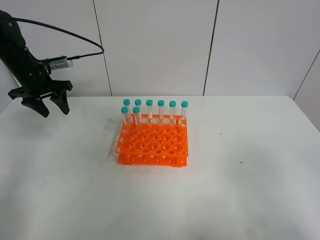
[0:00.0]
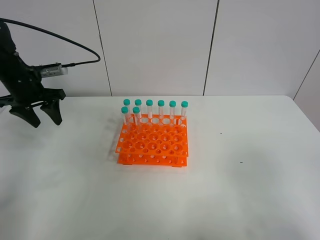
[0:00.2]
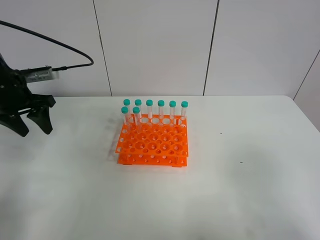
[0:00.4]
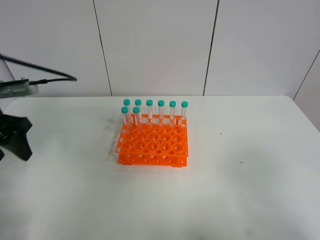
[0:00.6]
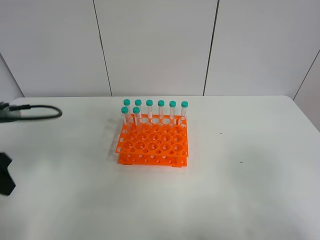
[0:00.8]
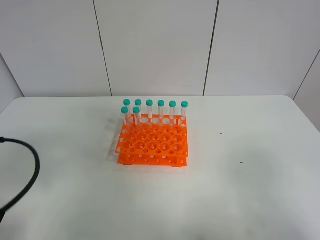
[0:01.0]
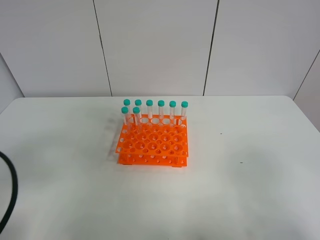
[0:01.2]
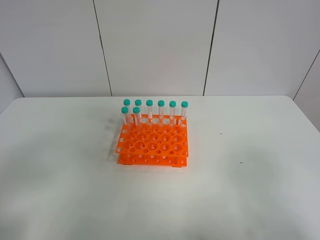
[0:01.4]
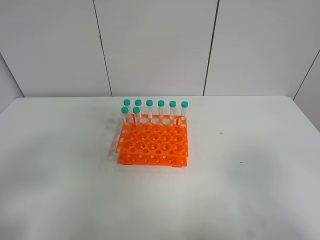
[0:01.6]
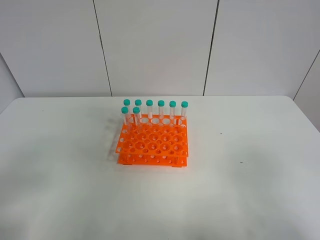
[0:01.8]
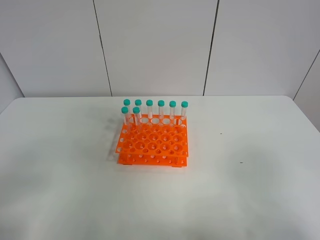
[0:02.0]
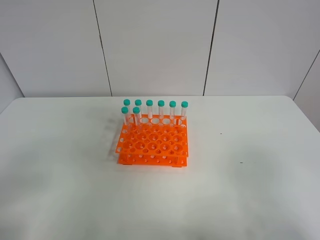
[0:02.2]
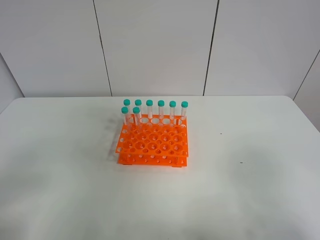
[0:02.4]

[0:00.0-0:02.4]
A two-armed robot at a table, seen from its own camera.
Task of the whole recording: Put the test tube on the table back onto the test tube rack.
0.0 to 1.2 s: The left gripper is displaced backward by some 35 cm.
1.2 to 2.4 s: The left gripper moves backward, roughly 5 cm.

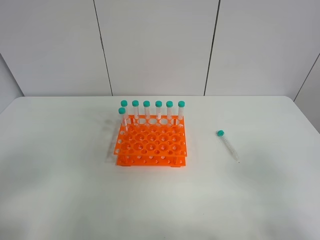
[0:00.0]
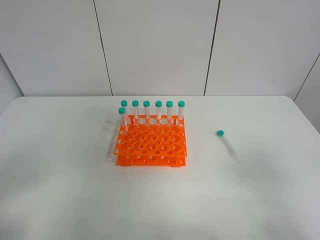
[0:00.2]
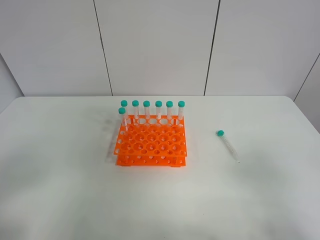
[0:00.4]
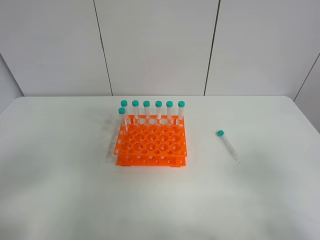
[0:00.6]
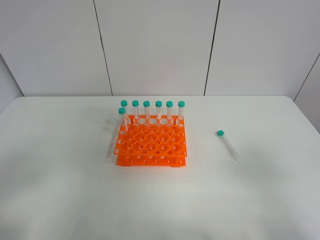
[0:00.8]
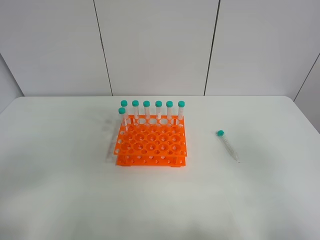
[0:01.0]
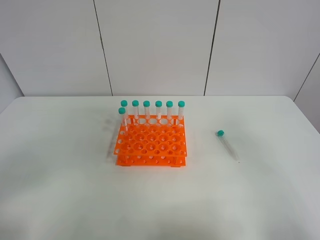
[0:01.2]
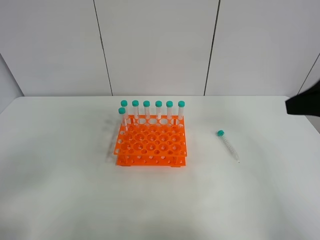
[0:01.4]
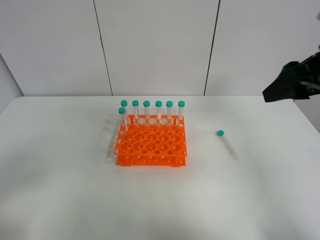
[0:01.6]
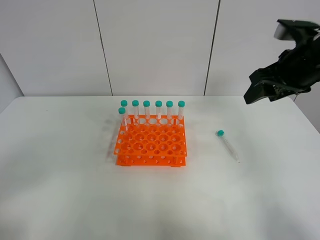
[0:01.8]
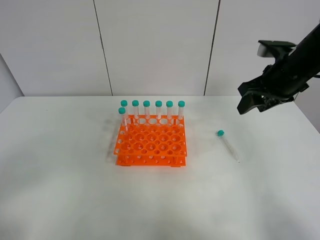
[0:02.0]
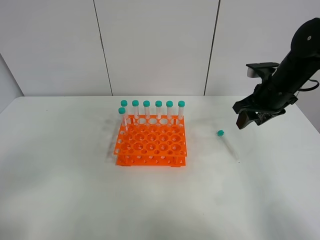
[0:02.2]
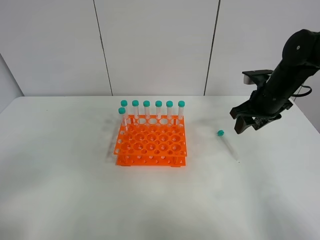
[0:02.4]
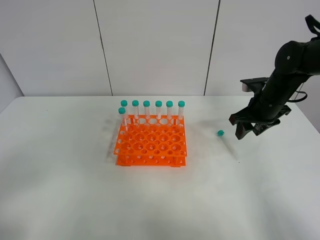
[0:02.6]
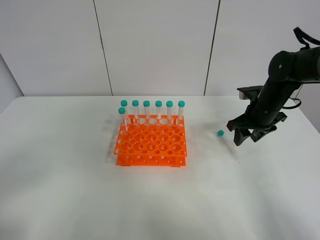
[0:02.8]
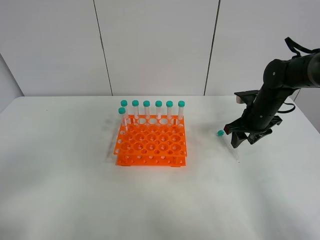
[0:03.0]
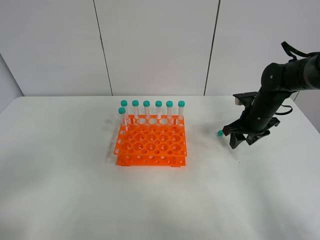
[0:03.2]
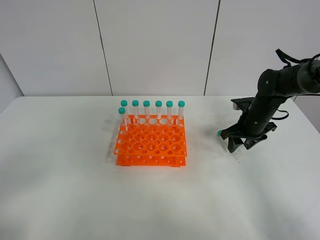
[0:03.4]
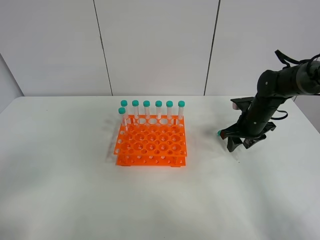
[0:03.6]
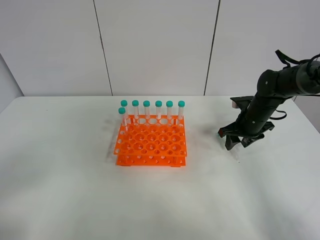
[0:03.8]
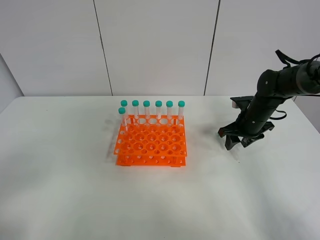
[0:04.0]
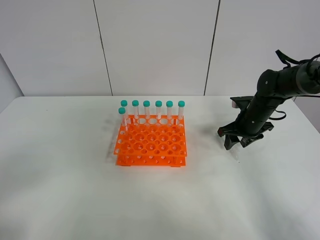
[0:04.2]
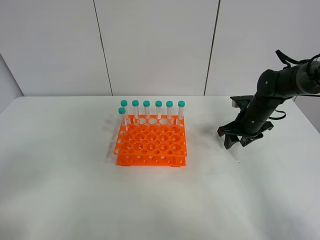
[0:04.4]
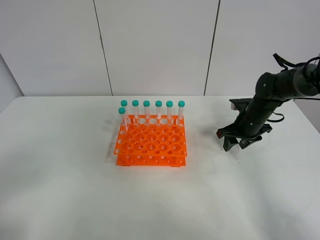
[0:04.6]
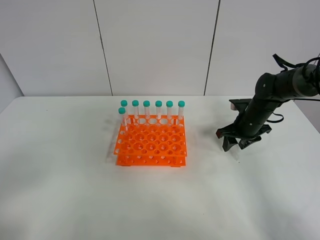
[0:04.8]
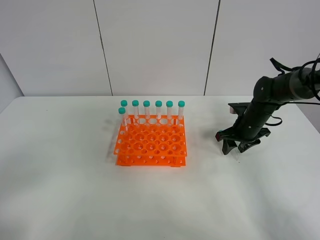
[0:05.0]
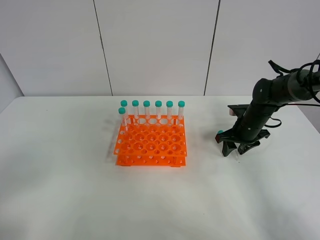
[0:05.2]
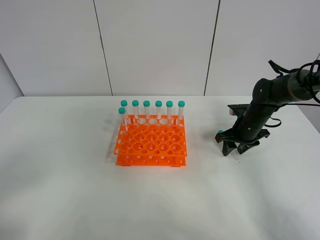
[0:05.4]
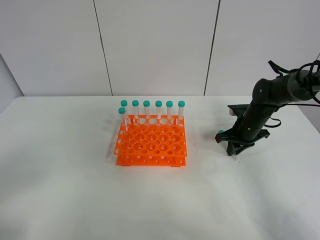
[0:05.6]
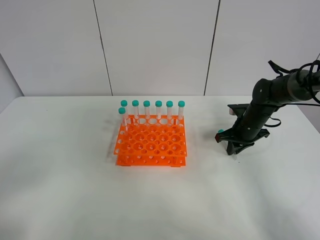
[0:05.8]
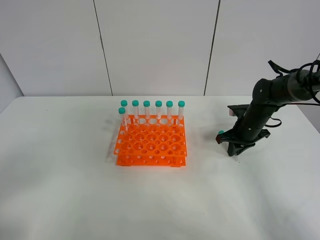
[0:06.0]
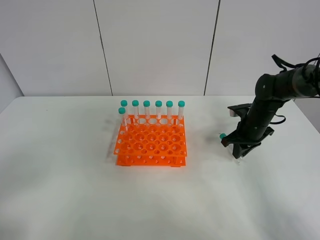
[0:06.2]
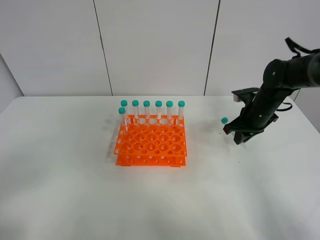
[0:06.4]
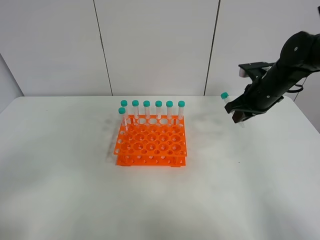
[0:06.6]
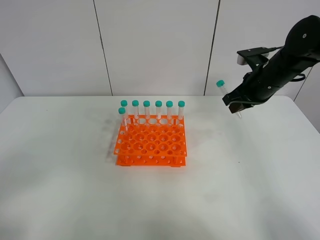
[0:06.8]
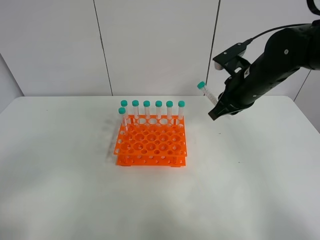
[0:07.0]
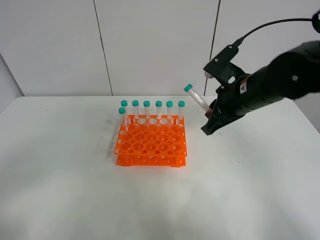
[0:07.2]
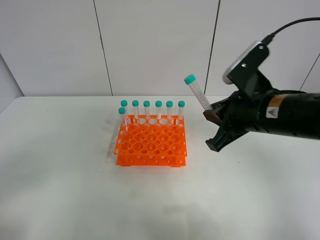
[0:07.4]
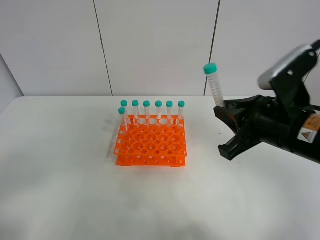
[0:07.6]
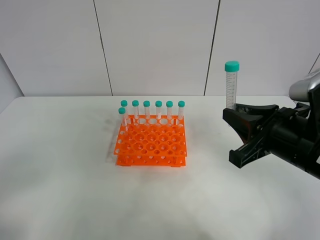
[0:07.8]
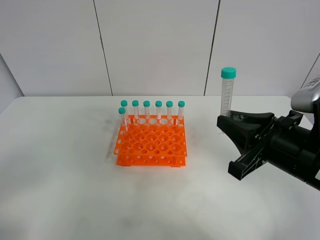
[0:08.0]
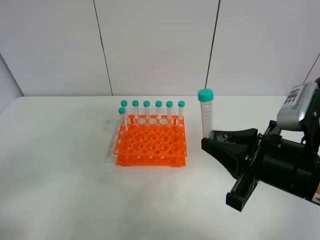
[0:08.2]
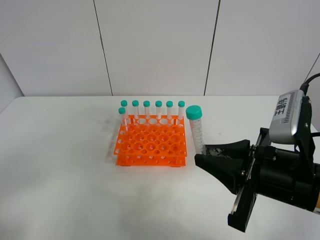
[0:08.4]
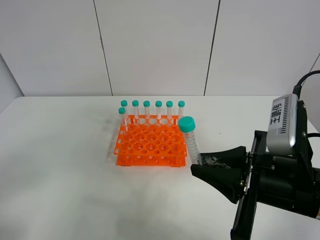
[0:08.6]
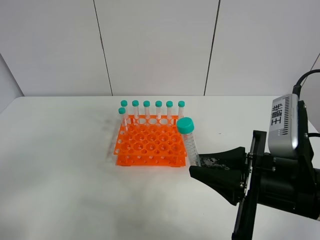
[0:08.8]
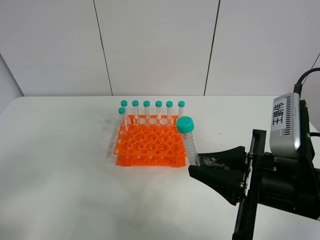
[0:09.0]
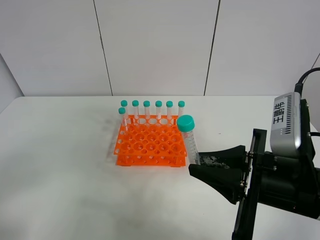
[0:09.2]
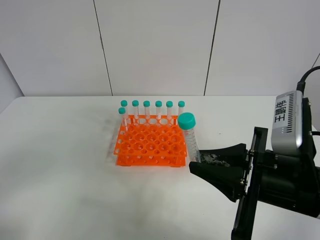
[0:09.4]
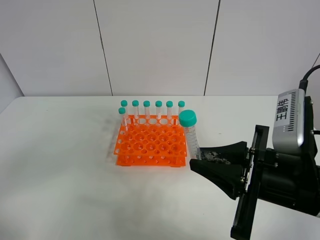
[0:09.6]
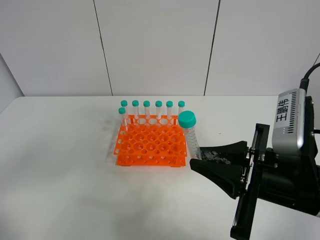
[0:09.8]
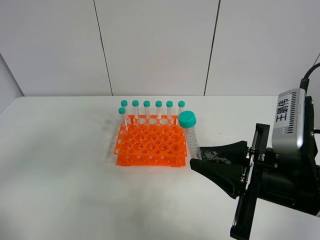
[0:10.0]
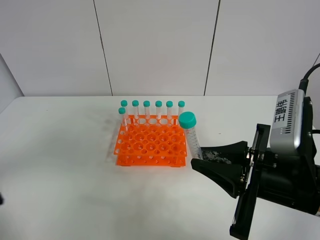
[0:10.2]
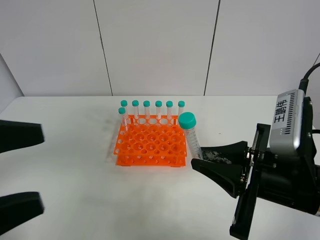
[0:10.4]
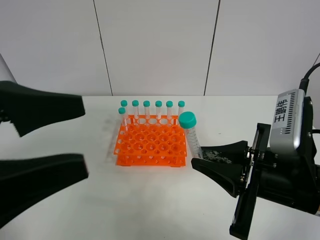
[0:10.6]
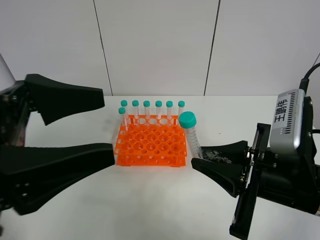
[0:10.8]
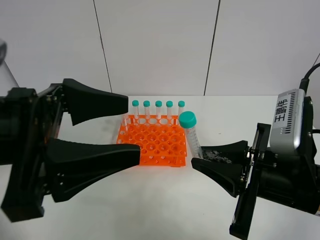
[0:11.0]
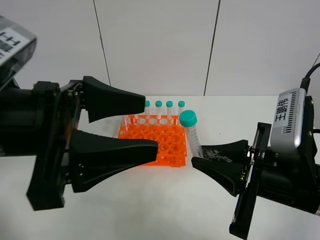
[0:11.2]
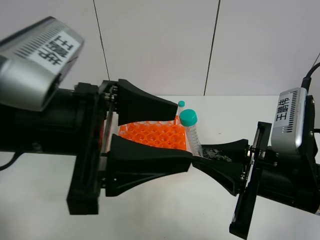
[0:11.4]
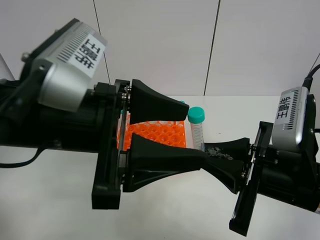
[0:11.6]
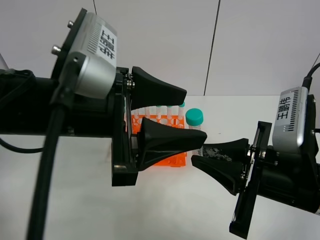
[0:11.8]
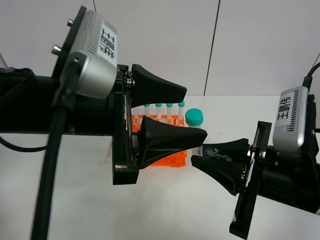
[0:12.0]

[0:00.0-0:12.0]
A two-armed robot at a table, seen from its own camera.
Task of the whole recording: Put the test tube on the table back onto the test tube rack.
Step, 0.0 to 6.8 s: Pick up the test tube with the right gripper.
0.0 to 1.6 s: The right gripper is displaced forward by about 25 cm.
1.6 to 3.0 s: The right gripper travels downward and forward by about 25 cm.
3.0 to 4.4 s: The grippers move only a little.
4.4 to 6.0 s: The right gripper closes its fingers.
6.0 to 7.6 s: The right gripper moves backward and upward, approximately 25 cm.
7.6 to 9.0 s: The right gripper goes roughly 5 cm backward.
9.0 to 10.4 s: The left gripper is displaced to the right, forward and upward by some 15 cm.
10.4 to 12.0 s: The left gripper shifts some 15 cm to the right and forward.

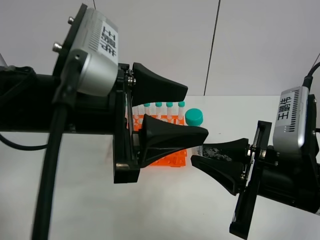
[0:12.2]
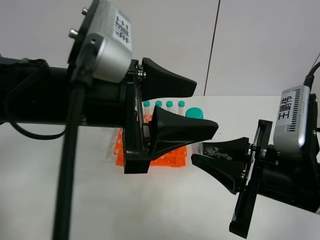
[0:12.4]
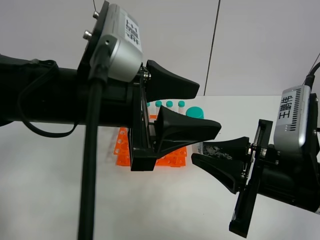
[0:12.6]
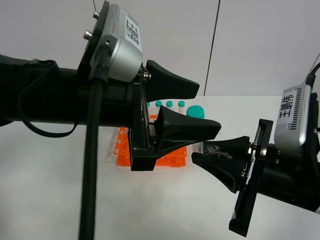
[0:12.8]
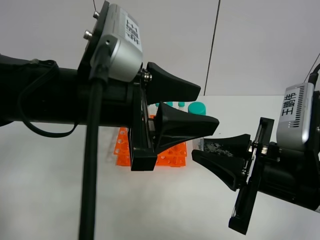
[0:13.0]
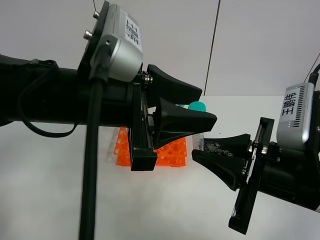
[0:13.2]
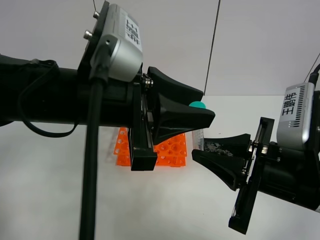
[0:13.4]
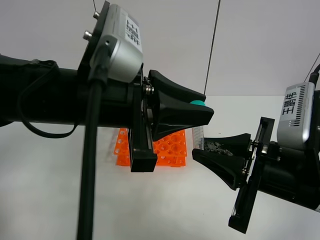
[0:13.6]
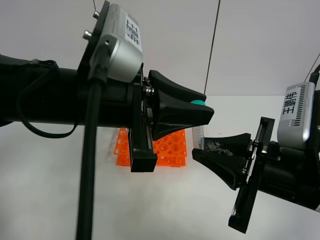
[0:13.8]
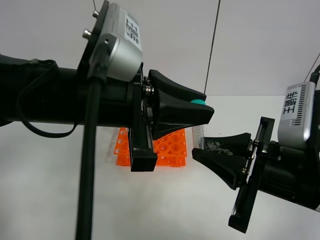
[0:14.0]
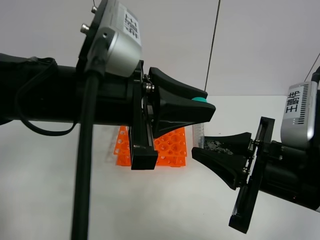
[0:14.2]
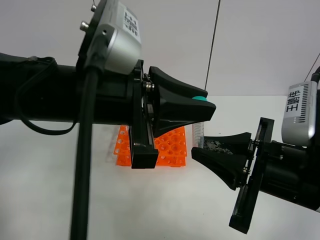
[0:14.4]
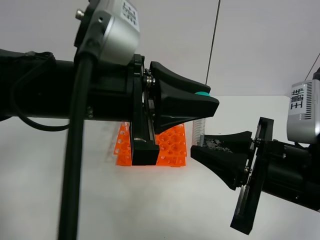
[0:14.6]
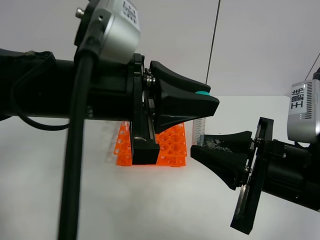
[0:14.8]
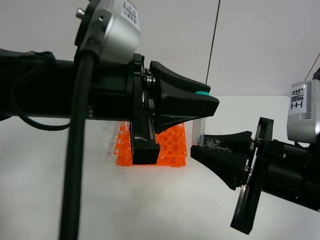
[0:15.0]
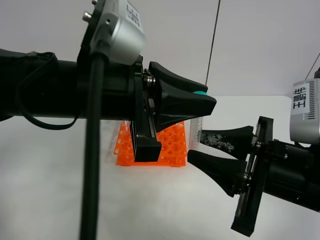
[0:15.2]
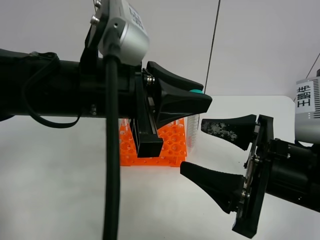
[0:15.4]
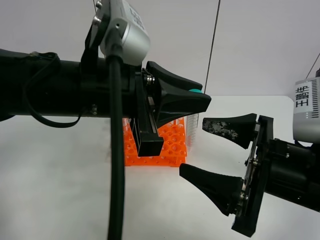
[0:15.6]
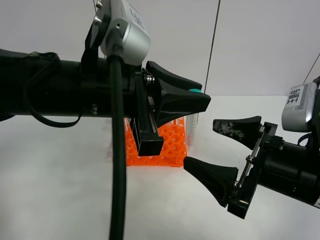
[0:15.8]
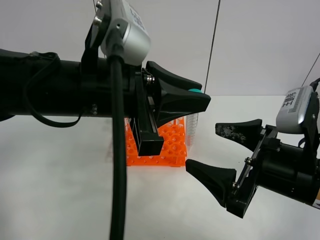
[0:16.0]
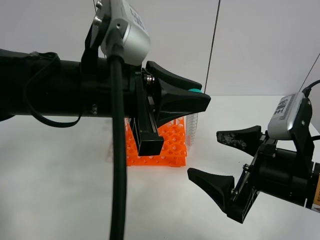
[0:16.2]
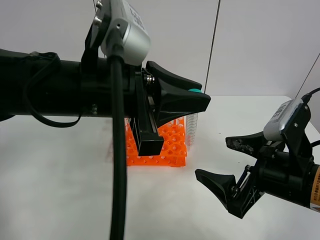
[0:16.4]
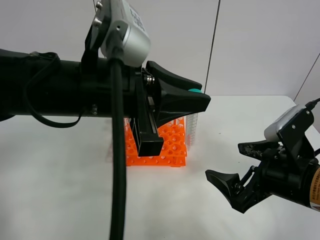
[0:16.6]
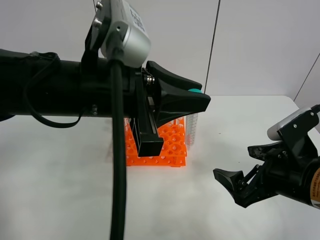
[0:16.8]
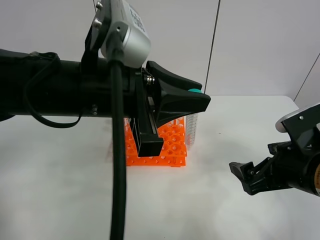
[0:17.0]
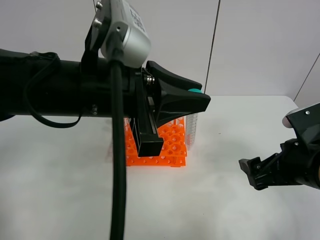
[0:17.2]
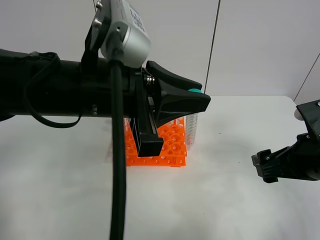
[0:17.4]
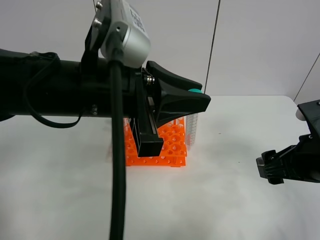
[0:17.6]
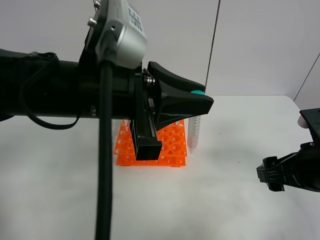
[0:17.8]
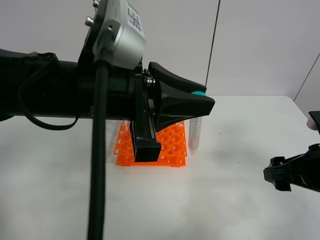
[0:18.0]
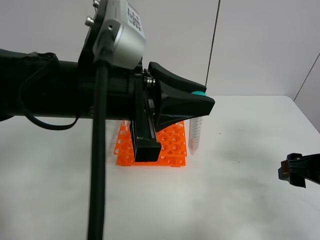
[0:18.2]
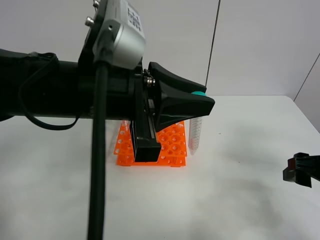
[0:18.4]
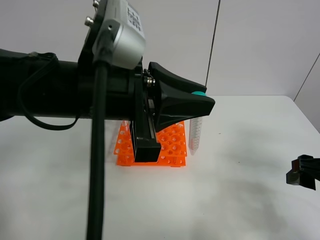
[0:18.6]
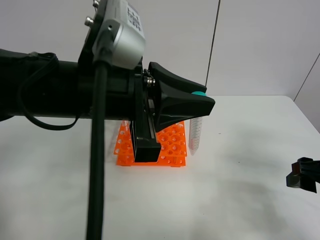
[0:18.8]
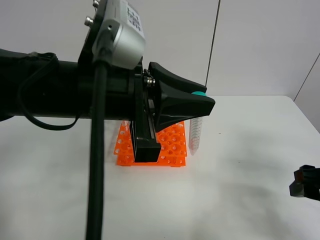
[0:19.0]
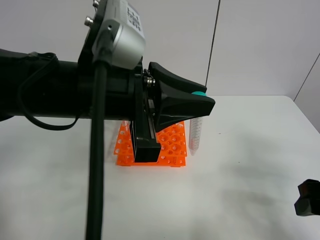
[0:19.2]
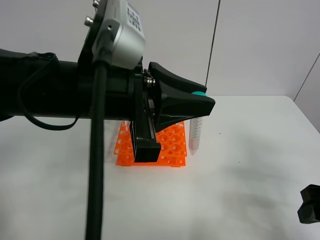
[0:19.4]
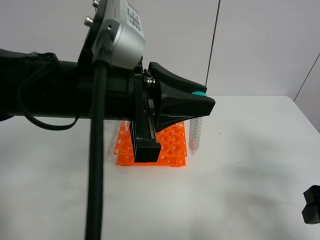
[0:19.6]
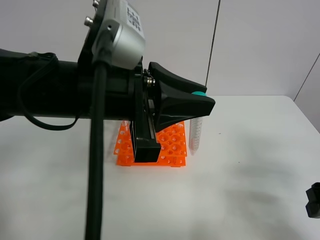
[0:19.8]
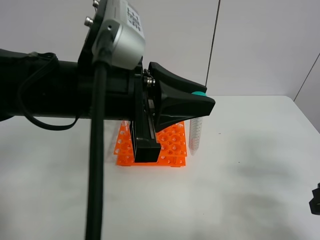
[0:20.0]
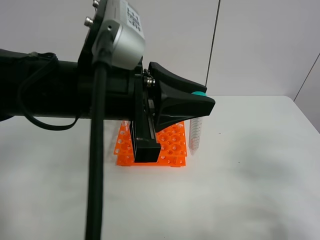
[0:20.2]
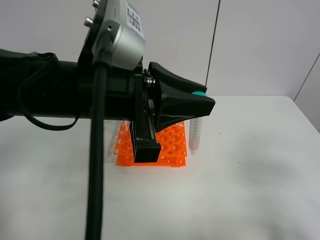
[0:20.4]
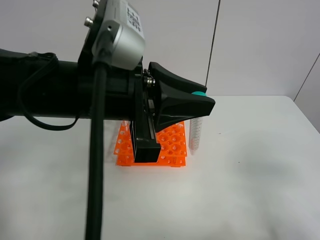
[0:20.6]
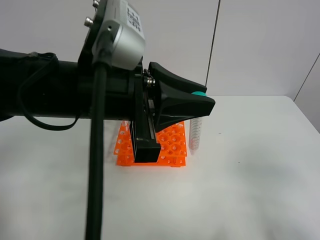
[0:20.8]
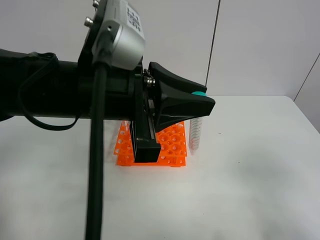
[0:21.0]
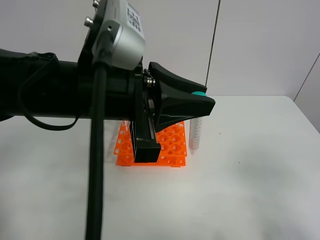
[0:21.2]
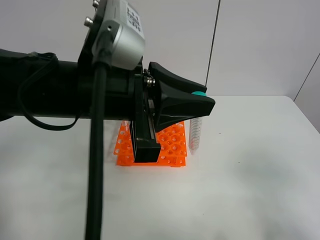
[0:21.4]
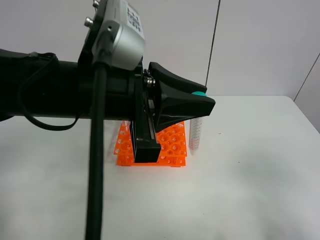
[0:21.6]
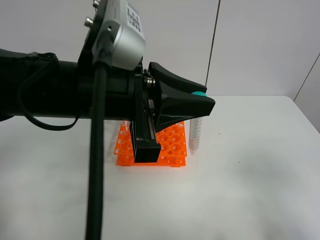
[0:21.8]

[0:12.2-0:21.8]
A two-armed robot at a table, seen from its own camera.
Task of the whole recording: Put the test tube on the table back onto the test tube rack.
Step, 12.2 to 16.2 s: Move the test tube from the right gripper to the left gripper.
12.2 to 13.8 s: The left gripper closes.
13.8 to 15.4 s: The right gripper opens up.
15.4 to 17.0 s: The right gripper goes approximately 5 cm to the right.
17.0 to 18.6 s: The right gripper heads to the right, covering roughly 10 cm.
18.6 to 20.2 s: The right gripper goes approximately 5 cm backward.
